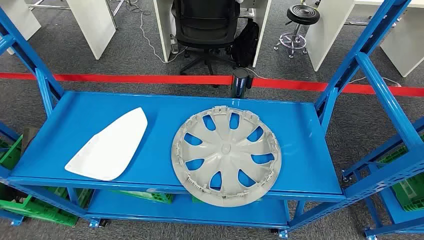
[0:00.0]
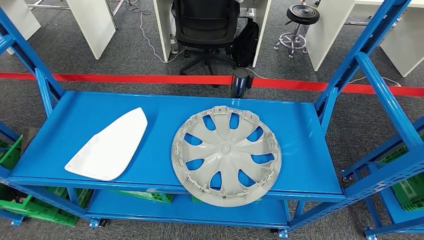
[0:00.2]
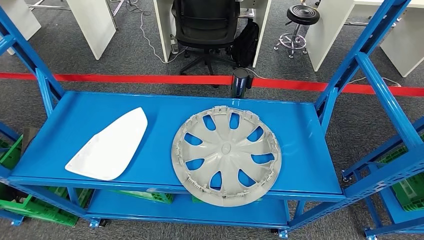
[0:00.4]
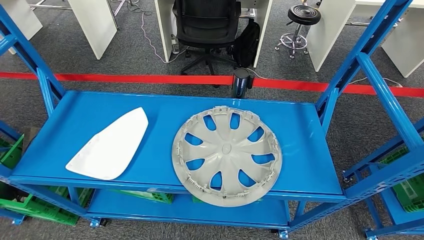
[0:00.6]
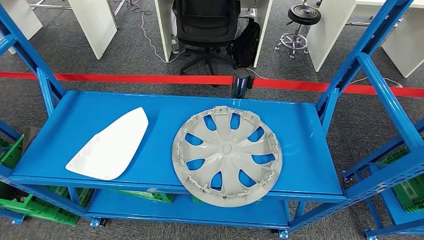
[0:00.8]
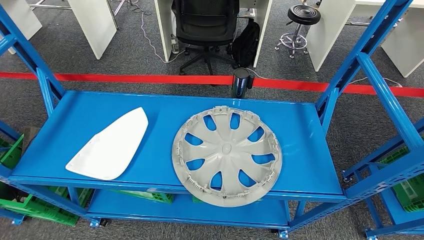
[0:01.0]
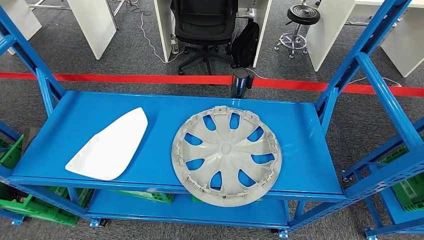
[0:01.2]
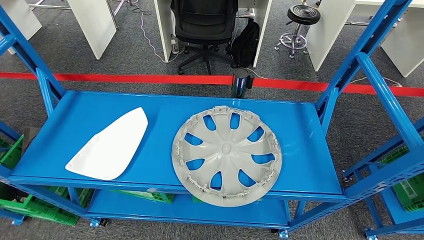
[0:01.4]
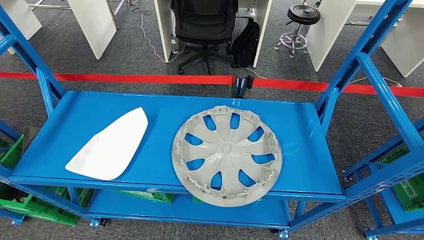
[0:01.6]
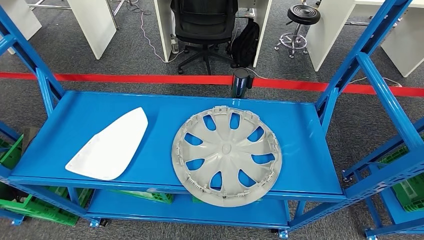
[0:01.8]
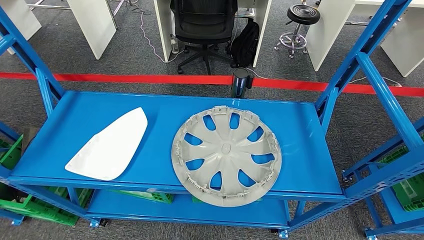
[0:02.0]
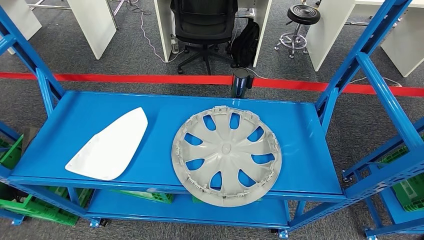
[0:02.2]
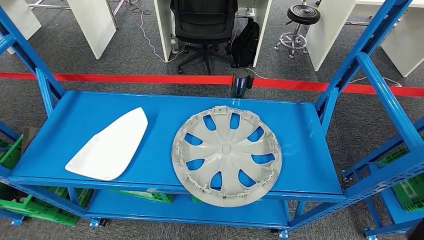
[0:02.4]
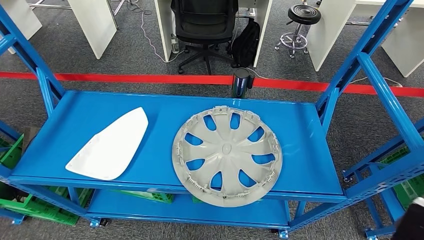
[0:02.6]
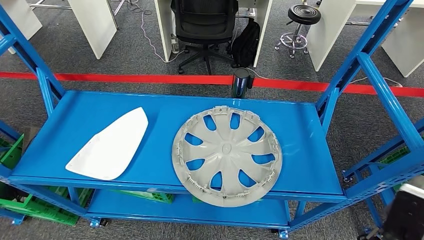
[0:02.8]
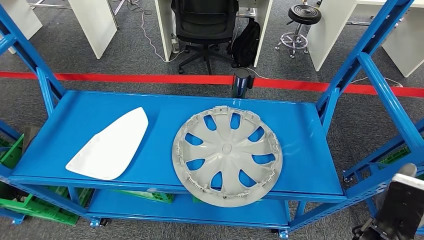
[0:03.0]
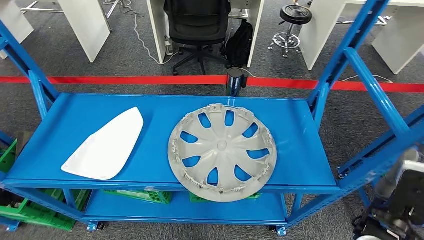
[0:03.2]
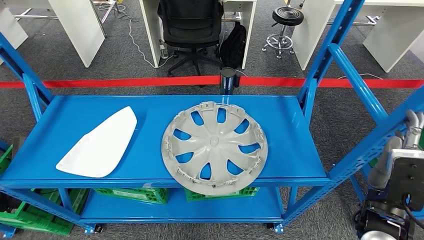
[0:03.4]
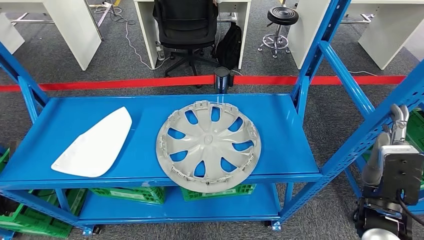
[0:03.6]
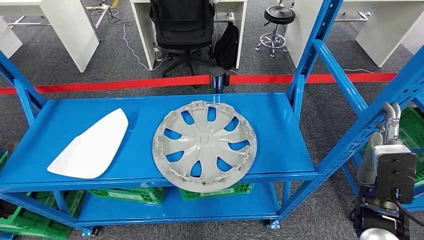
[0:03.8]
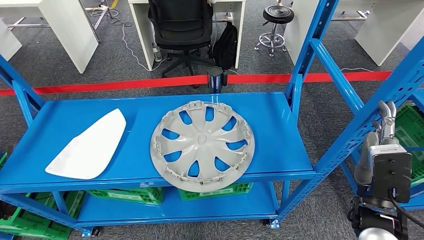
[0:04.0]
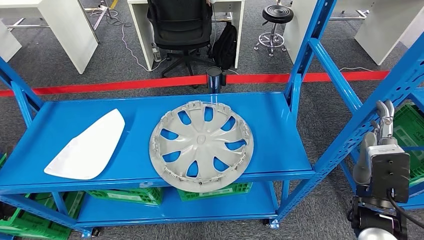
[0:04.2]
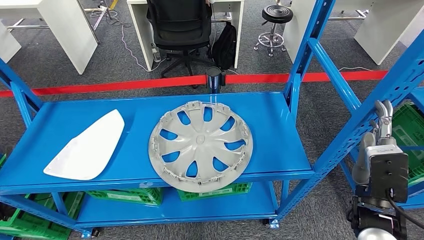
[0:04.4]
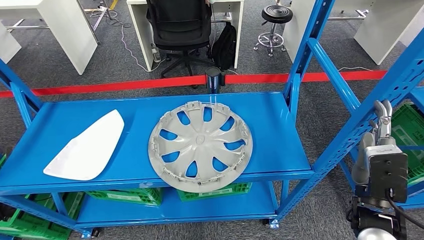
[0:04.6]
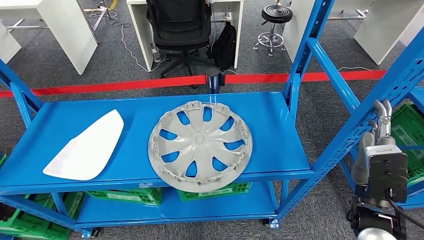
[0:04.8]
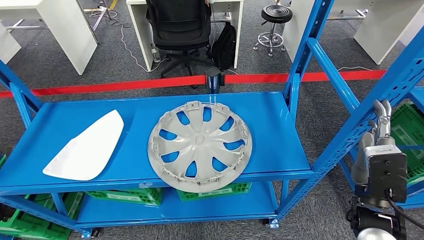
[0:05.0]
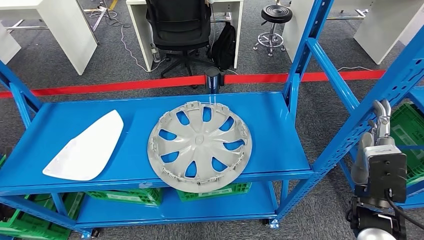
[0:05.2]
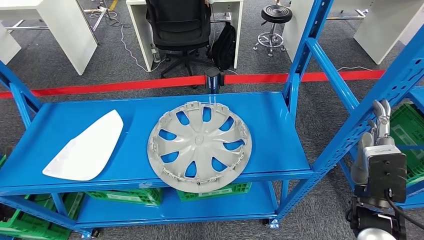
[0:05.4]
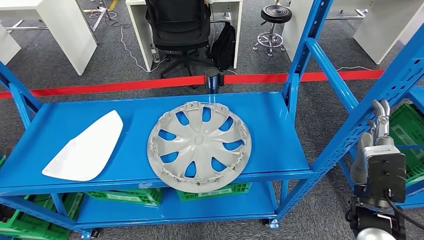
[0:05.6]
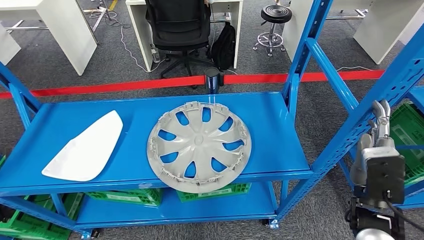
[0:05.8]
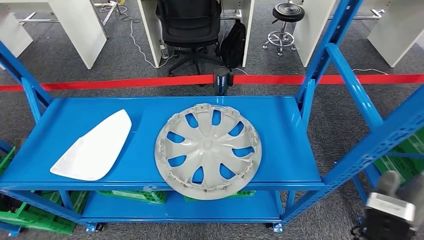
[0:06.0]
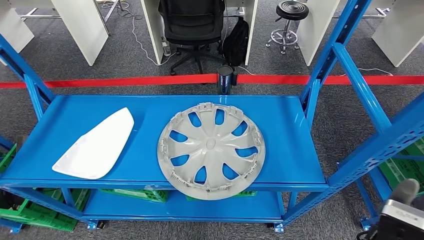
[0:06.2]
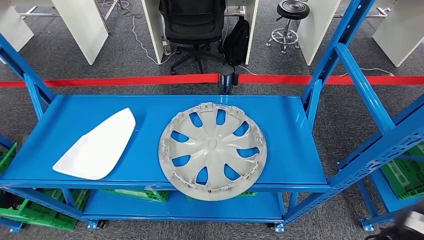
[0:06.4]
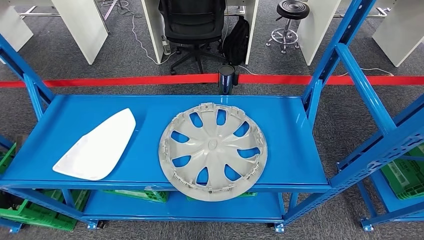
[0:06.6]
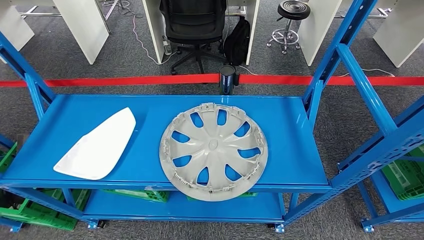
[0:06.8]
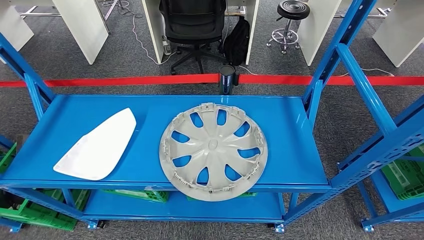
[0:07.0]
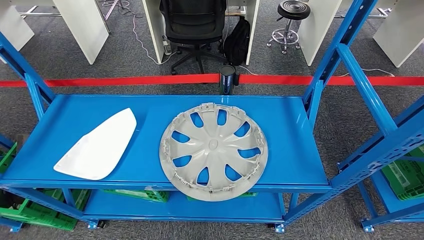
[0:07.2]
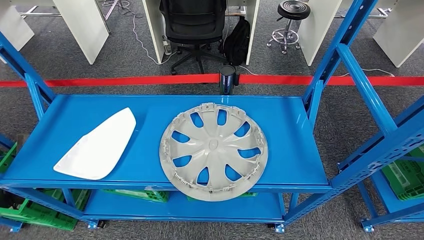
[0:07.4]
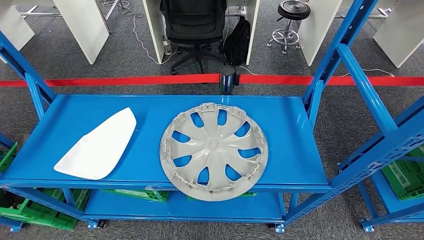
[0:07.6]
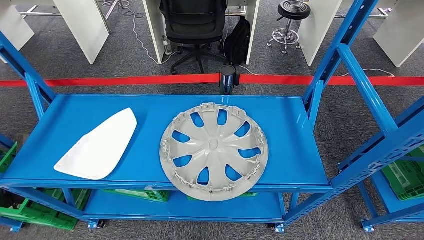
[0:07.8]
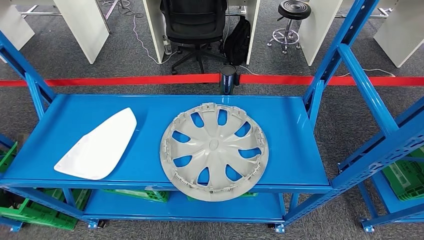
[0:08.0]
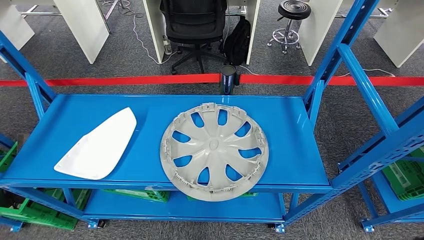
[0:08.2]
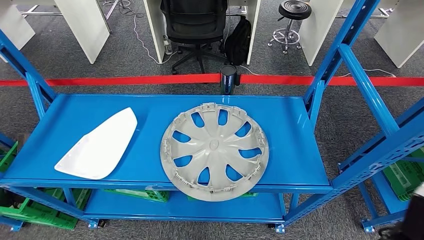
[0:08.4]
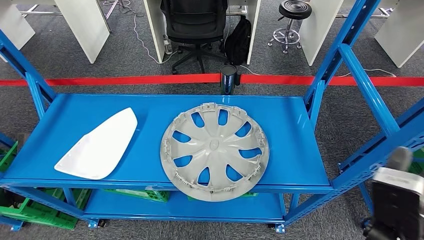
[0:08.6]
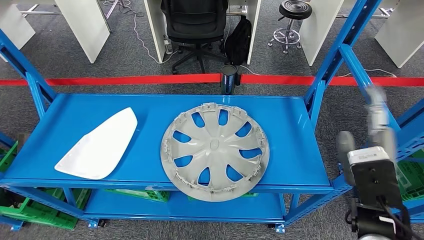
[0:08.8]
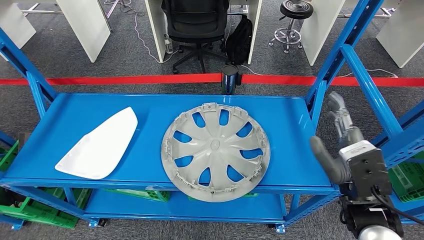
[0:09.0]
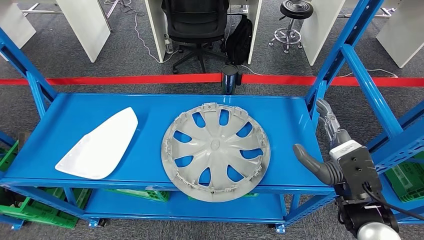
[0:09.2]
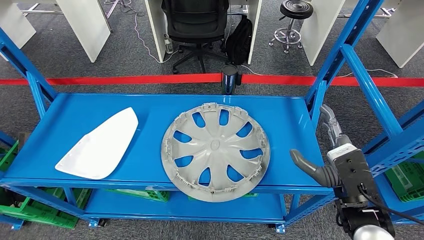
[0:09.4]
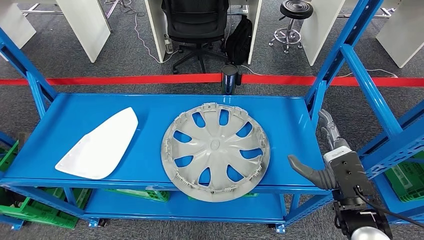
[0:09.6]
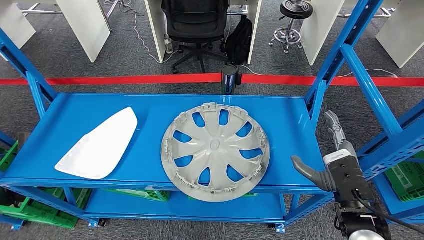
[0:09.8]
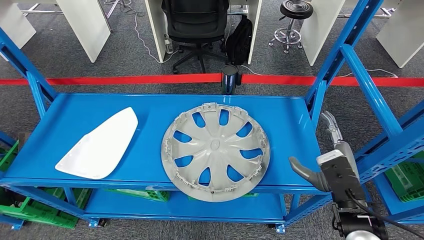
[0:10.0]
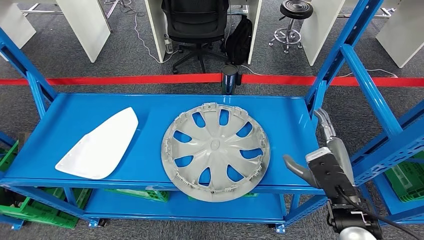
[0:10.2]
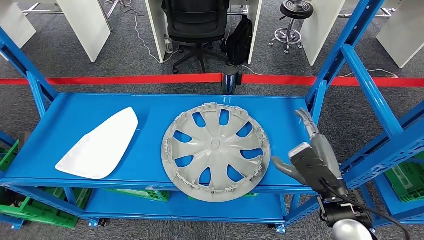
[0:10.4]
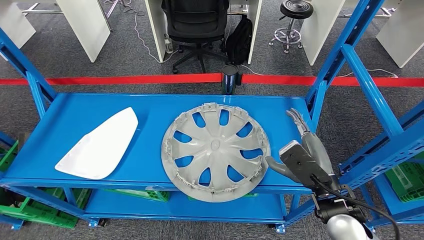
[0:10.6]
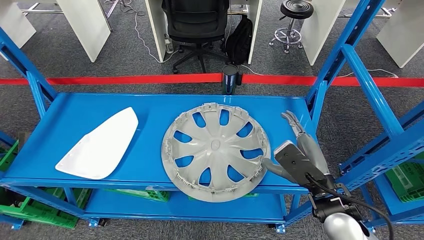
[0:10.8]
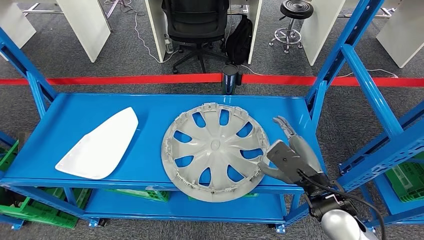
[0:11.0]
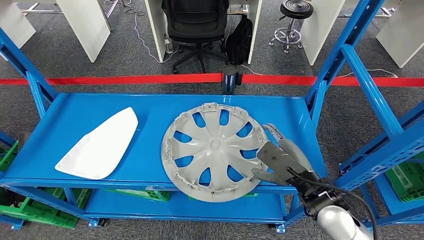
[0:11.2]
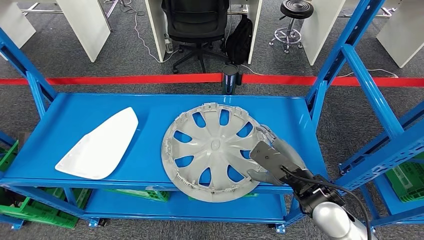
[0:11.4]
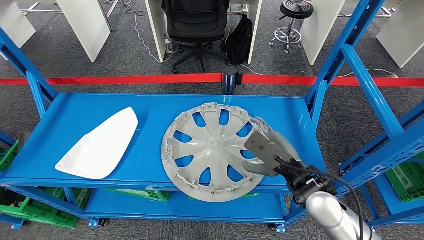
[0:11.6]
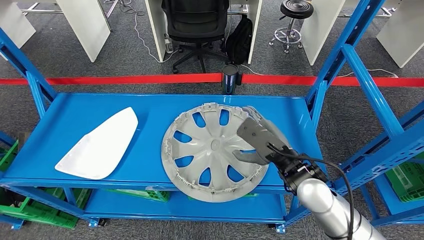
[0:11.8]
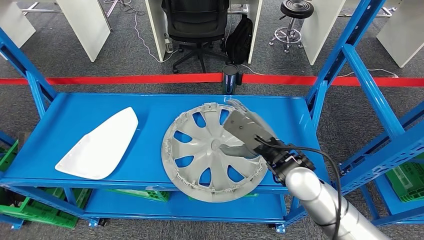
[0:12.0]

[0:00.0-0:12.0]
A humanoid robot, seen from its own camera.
1.6 to 3.0 s: The right hand goes some 15 cm to the left and upward.
7.6 to 9.0 s: The right hand is displaced to the left and forward by approximately 10 cm.
9.0 to 10.4 s: The hands make only small movements.
10.4 to 12.0 s: The right hand heads to the left and forward, covering roughly 10 cm.

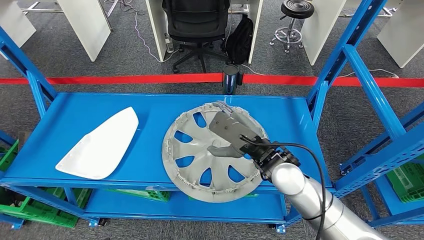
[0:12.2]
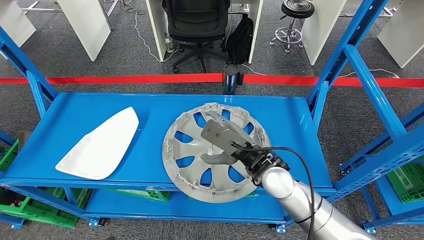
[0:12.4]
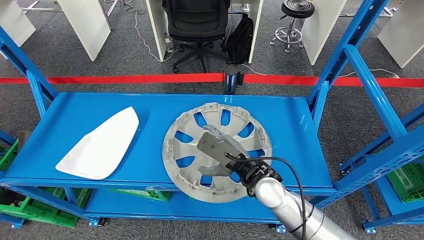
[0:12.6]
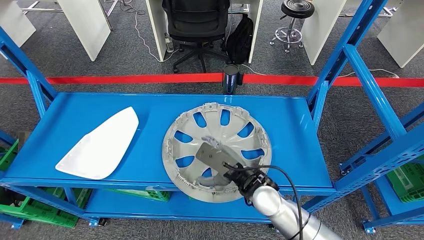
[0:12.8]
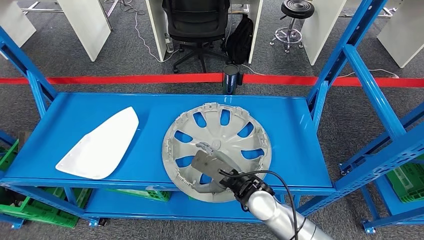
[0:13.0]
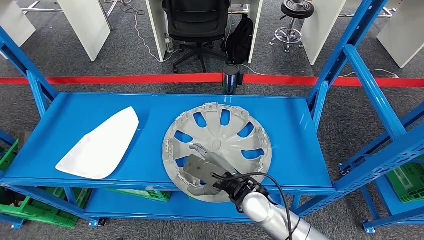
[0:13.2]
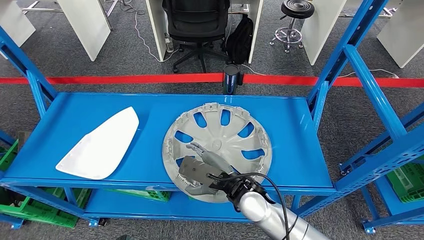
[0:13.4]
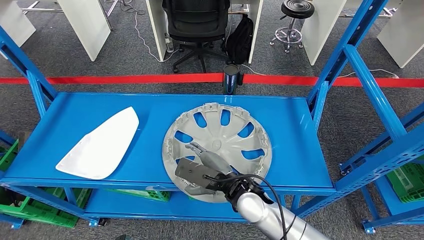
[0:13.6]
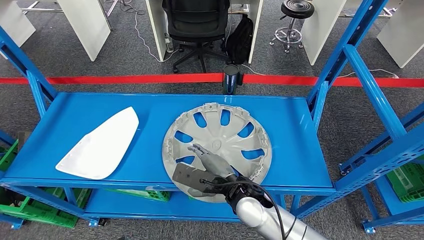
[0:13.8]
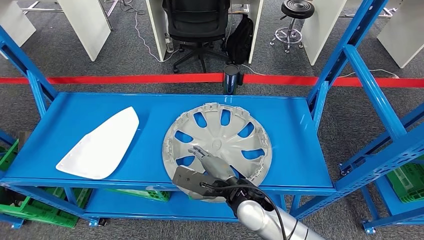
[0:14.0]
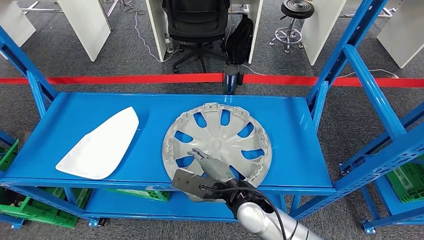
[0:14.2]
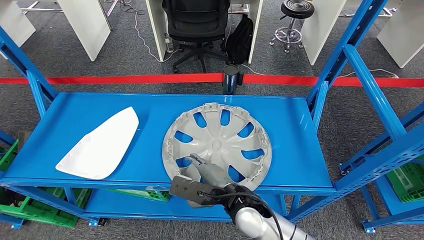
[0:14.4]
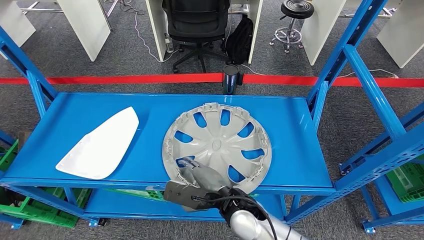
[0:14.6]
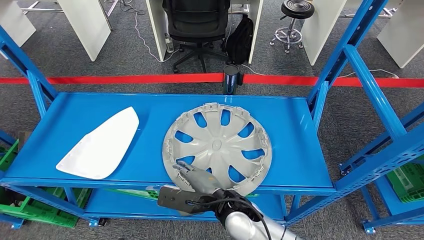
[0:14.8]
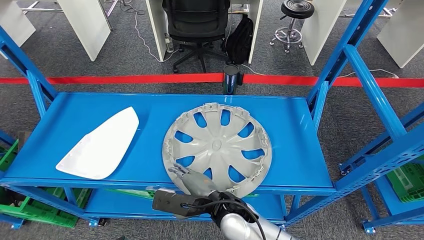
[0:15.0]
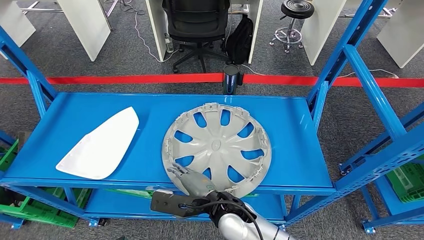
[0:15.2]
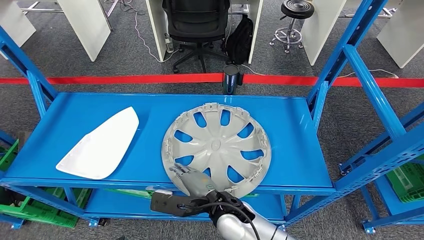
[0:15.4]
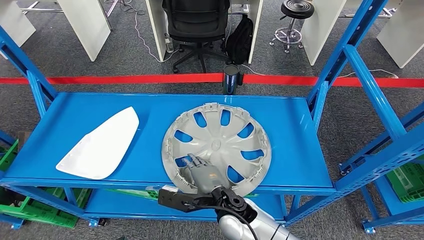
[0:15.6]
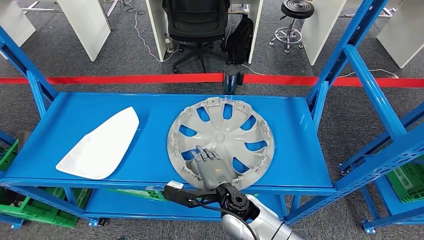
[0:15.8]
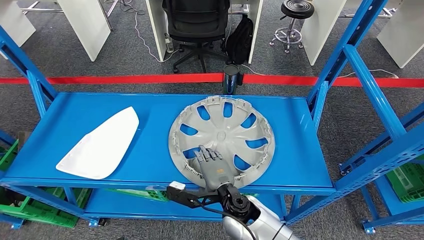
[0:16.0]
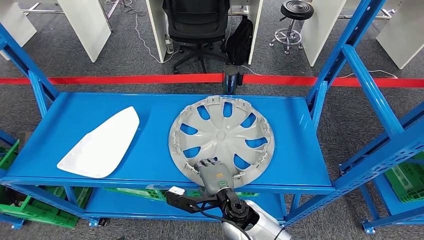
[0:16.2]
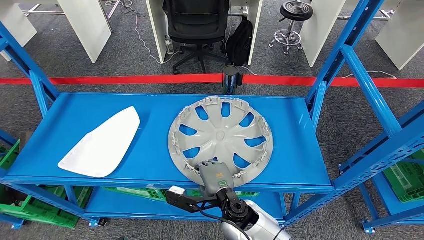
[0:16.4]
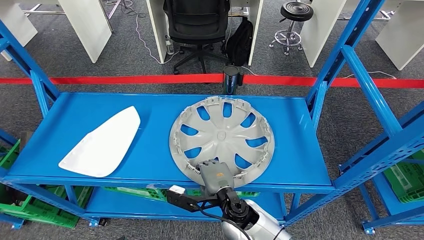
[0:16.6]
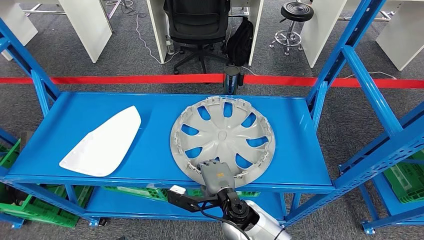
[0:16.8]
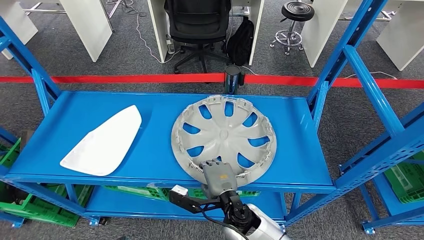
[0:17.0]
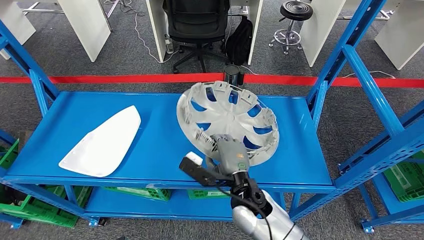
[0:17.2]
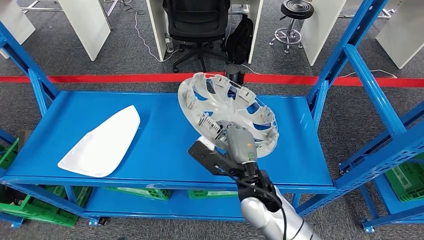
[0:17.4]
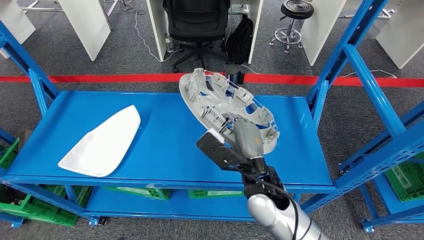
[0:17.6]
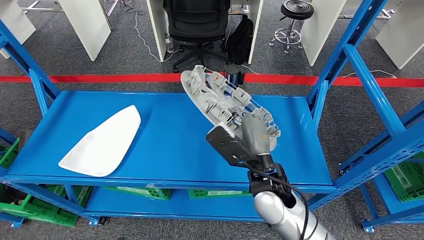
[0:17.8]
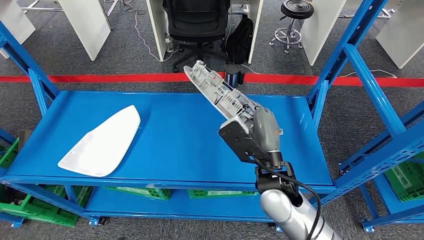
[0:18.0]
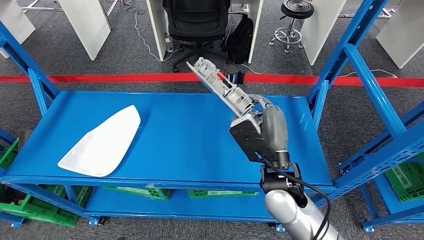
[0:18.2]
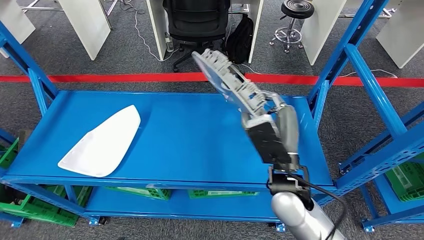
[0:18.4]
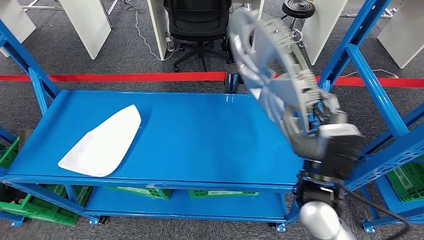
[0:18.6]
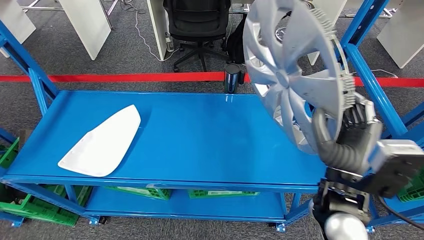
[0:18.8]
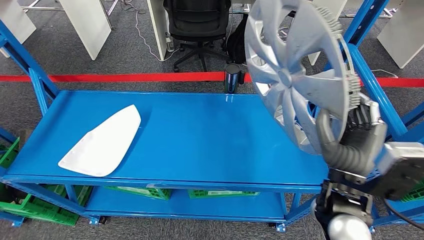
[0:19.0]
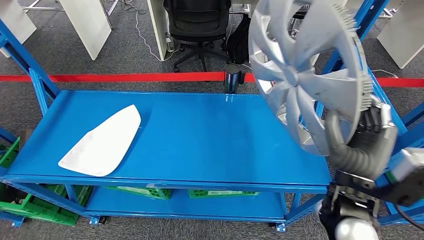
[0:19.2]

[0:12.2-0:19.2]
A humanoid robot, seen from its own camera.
Step, 12.2 to 18.0 s: Pick up the small parts from the shelf.
12.2 to 13.6 s: The right hand shifts some 10 cm downward and to the left.
13.6 to 15.0 s: The right hand changes place by roughly 5 cm.
16.4 to 17.8 s: The right hand heads upward and to the right, covering roughly 15 cm.
